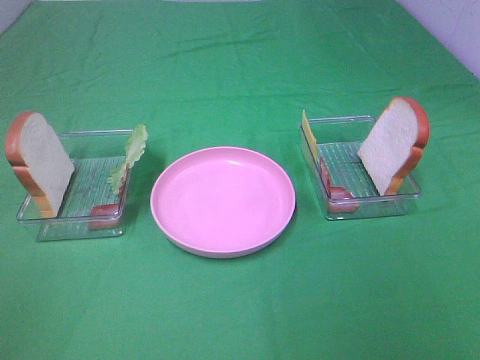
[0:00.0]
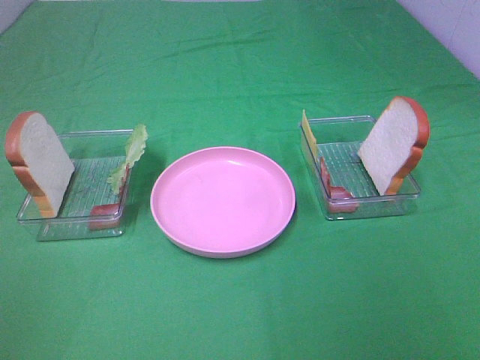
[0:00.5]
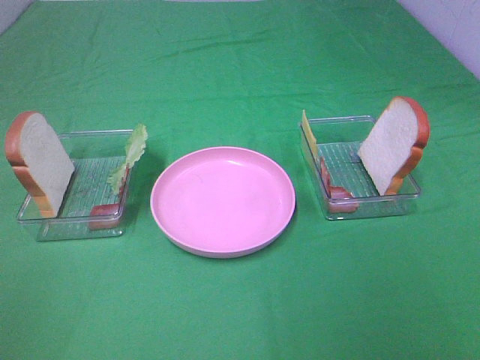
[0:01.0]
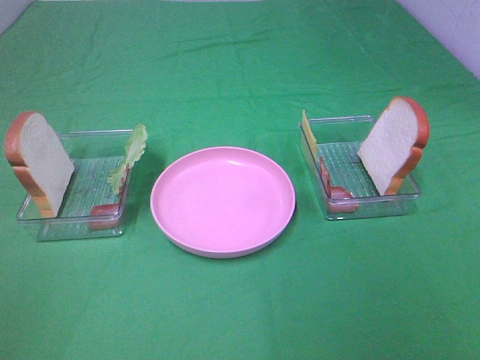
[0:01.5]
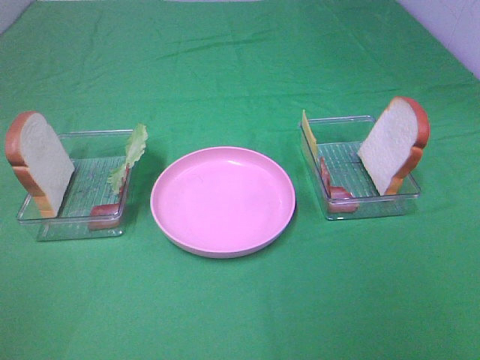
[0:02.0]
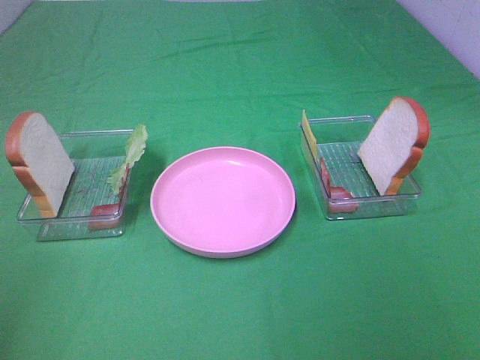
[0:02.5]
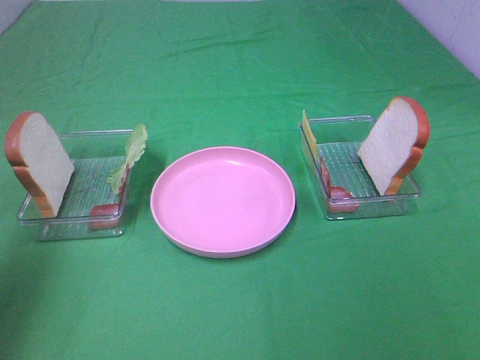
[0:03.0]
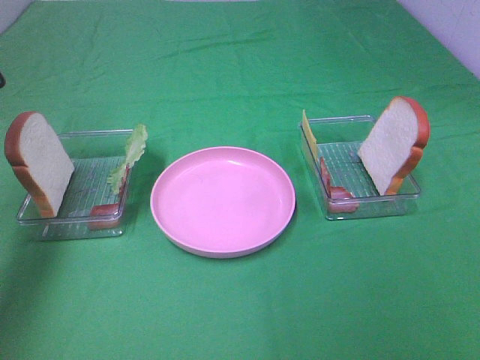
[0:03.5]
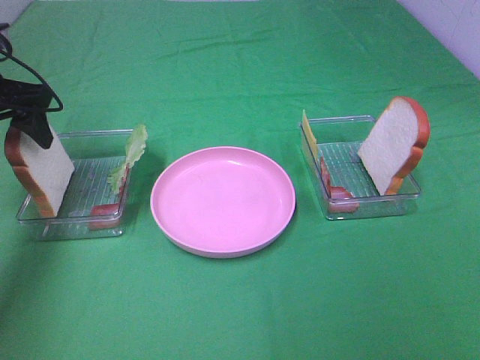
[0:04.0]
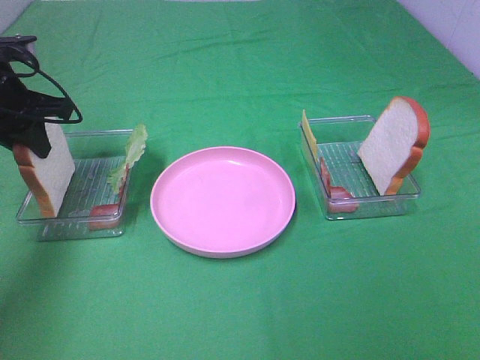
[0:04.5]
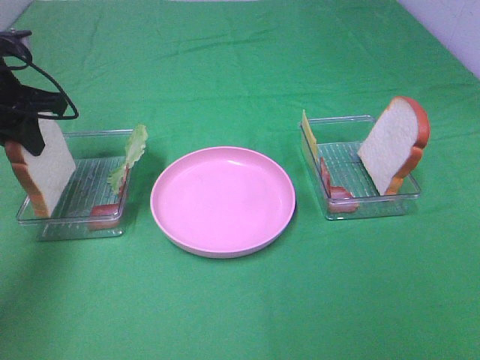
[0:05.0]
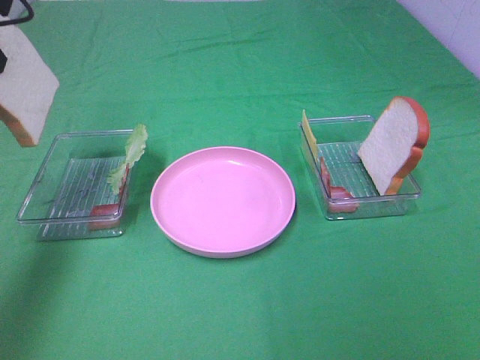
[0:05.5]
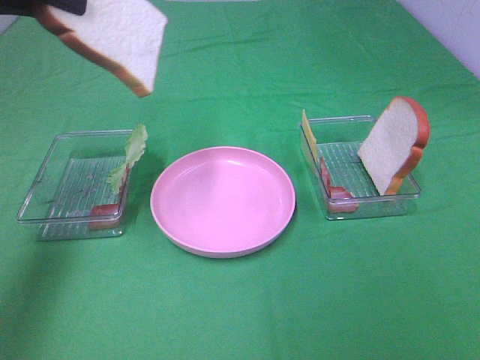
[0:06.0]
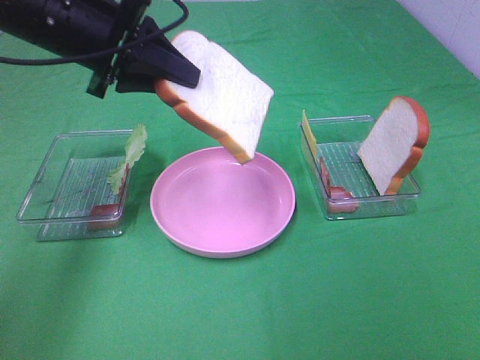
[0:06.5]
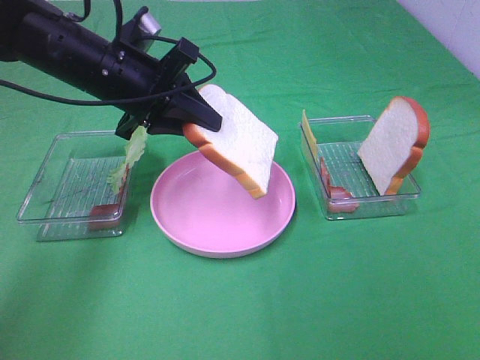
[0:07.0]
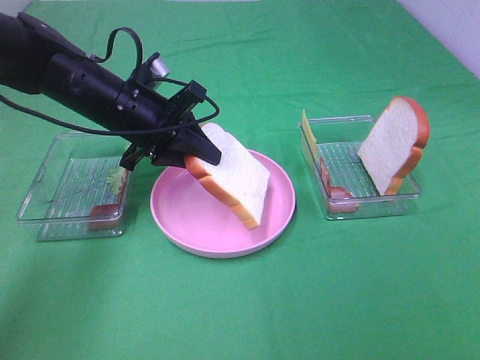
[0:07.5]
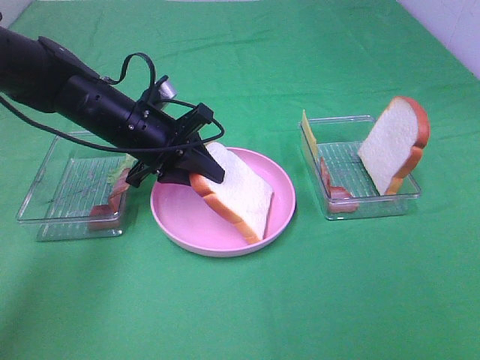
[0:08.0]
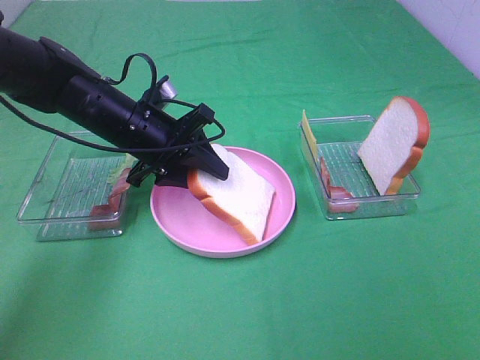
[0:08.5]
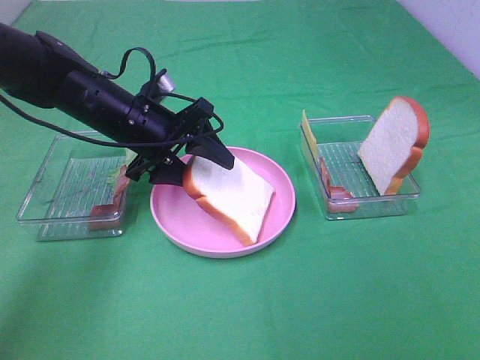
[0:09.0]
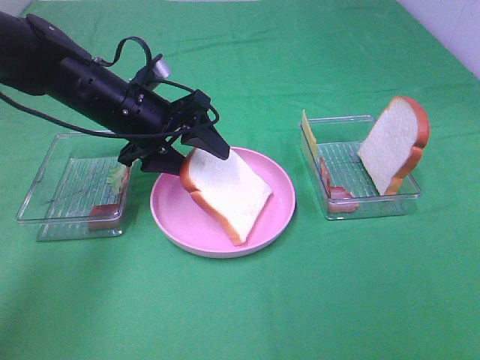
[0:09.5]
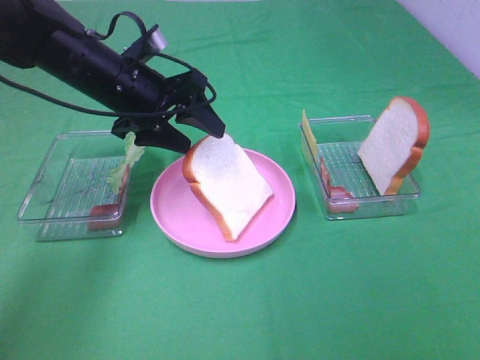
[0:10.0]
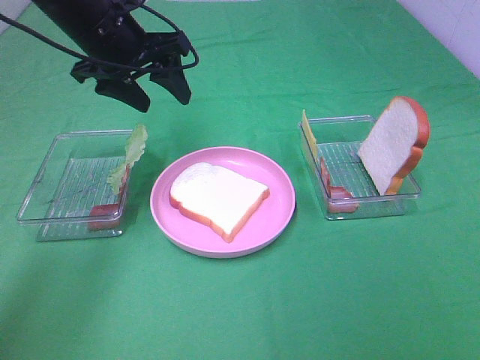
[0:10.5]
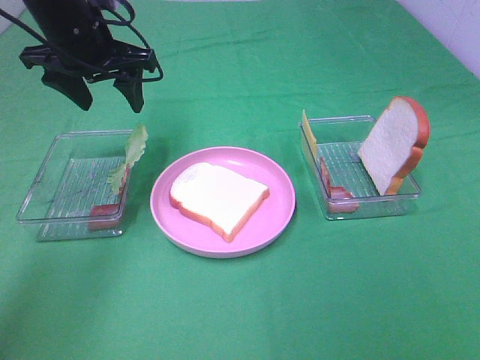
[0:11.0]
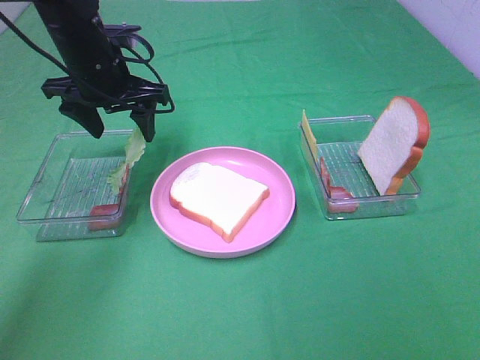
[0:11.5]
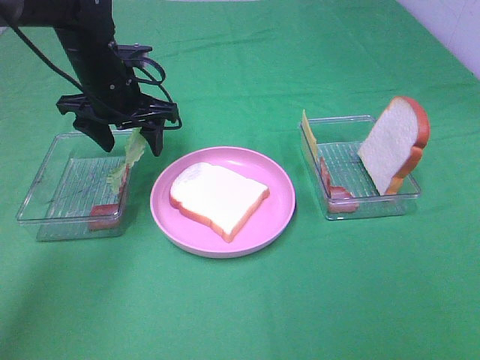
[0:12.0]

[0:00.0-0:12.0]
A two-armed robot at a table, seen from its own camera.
Task of the whole recording: Make sandwiches.
Step, 0:00.0 to 0:04.5: Left hand:grab the bread slice.
Step, 0:05.0 to 0:10.0: Left hand:place the bread slice on the plate.
0:00.0 to 0:02.0: The two grippers keep their place.
0:02.0 to 0:04.0: The left gripper travels forward by some 40 cm.
0:04.0 to 0:06.0: The left gripper goes approximately 15 cm upward, to the right and backward, and closes its fingers.
0:06.0 to 0:08.0: The left gripper moves downward and to the right, approximately 25 cm.
0:08.0 to 0:10.0: The left gripper heads upward, covering roughly 5 cm, and opens its fingers.
0:10.0 to 0:12.0: The left gripper travels upward and back again, roughly 5 cm each way.

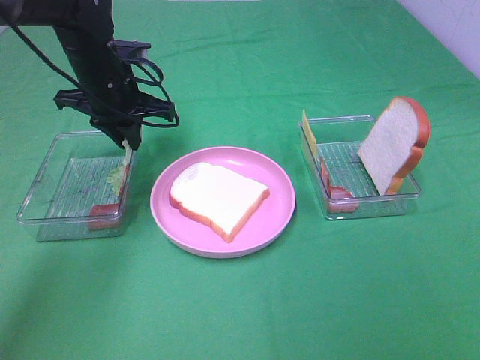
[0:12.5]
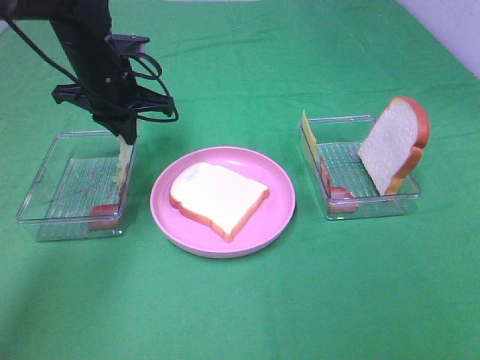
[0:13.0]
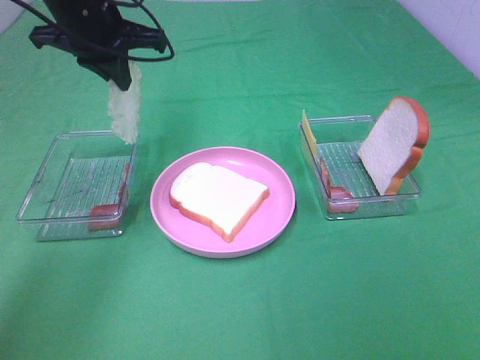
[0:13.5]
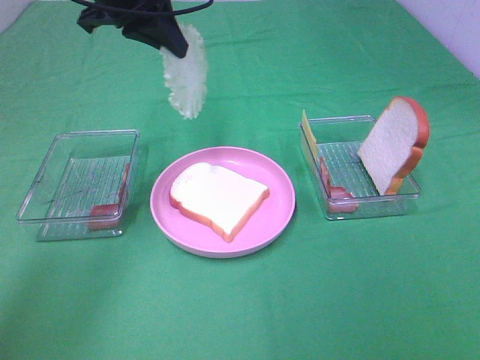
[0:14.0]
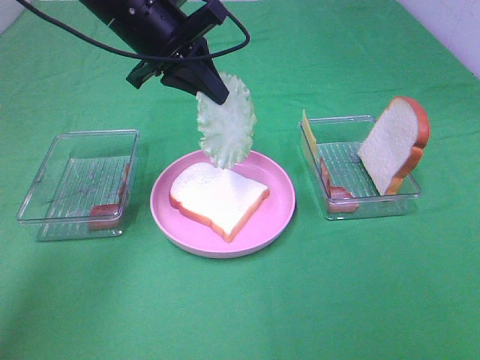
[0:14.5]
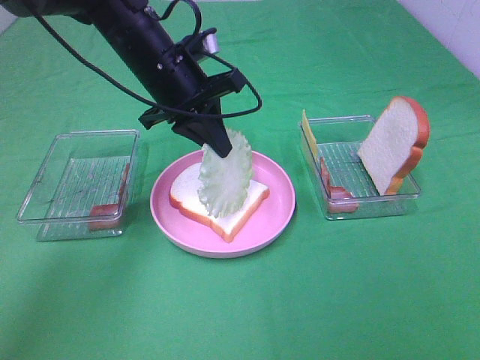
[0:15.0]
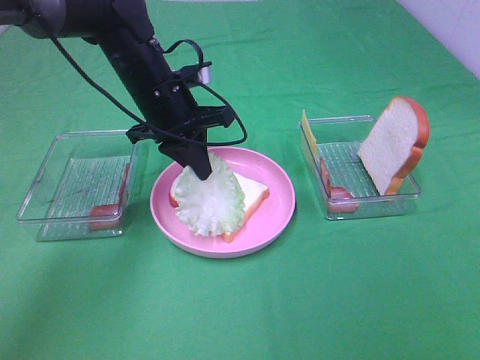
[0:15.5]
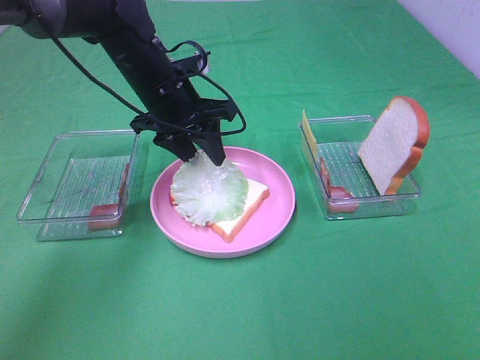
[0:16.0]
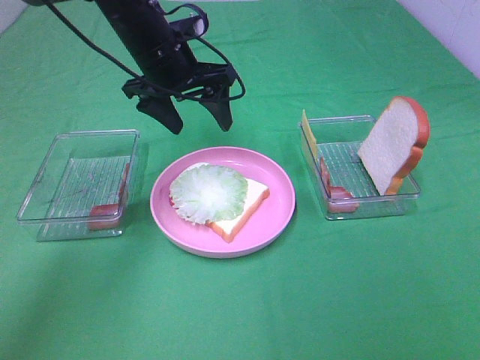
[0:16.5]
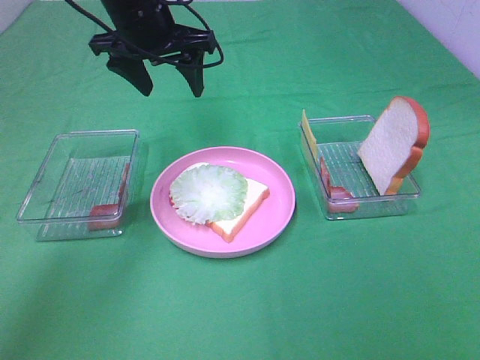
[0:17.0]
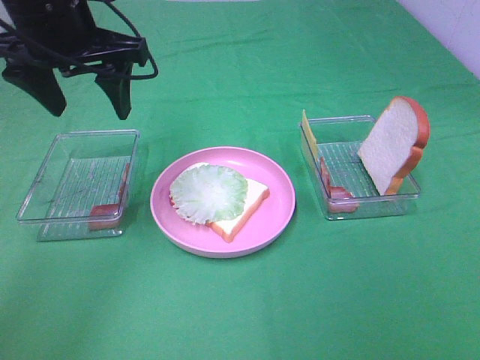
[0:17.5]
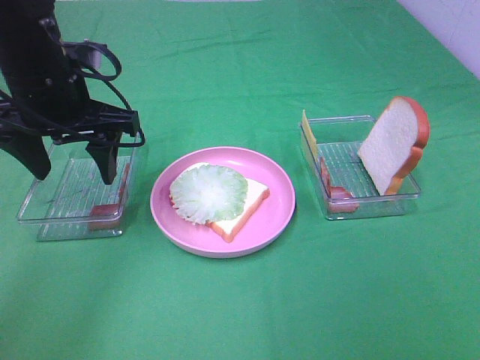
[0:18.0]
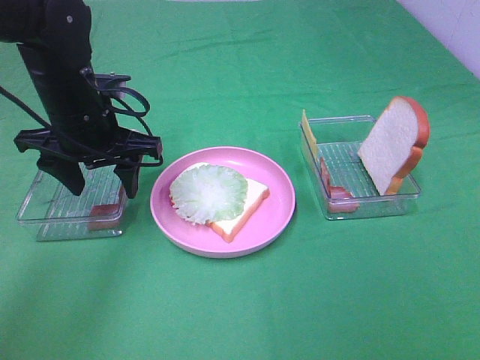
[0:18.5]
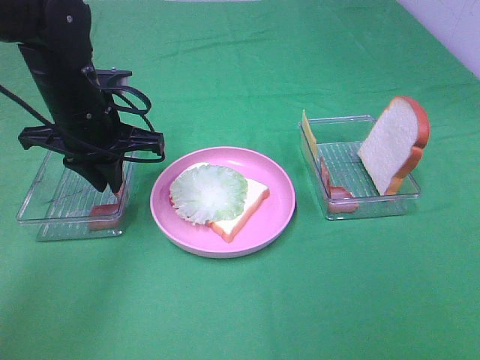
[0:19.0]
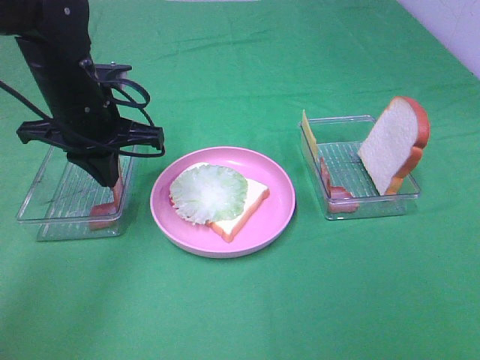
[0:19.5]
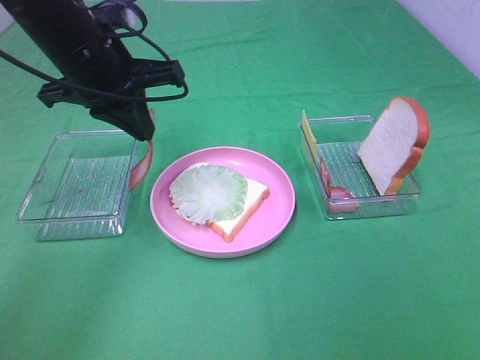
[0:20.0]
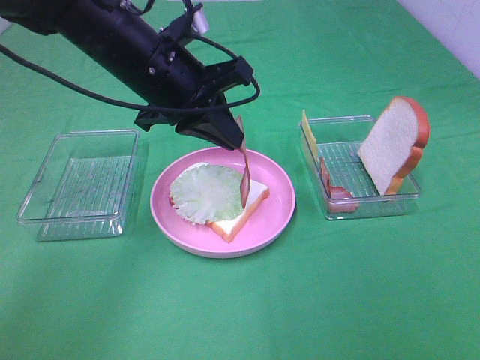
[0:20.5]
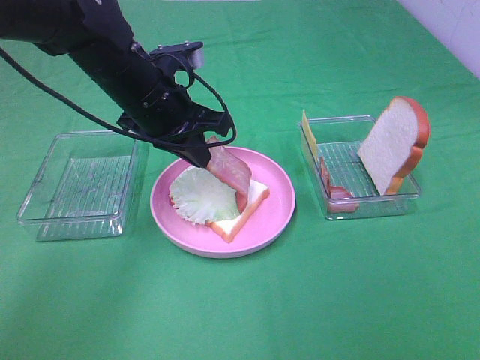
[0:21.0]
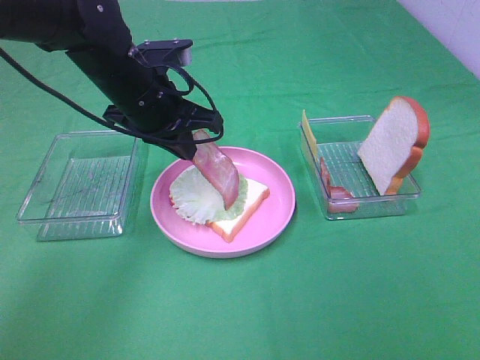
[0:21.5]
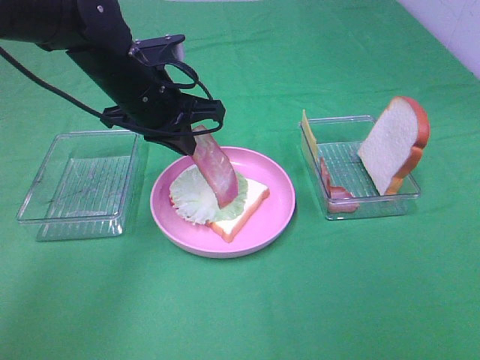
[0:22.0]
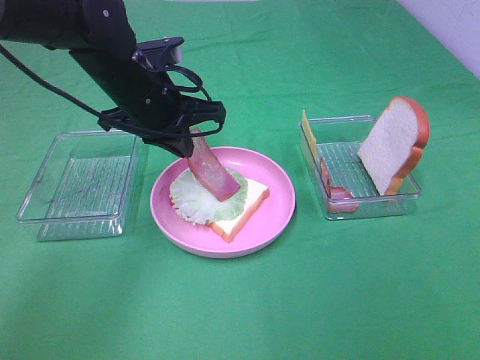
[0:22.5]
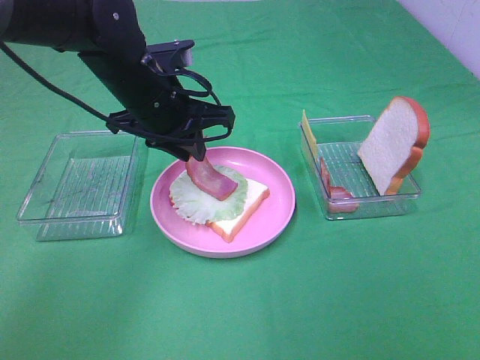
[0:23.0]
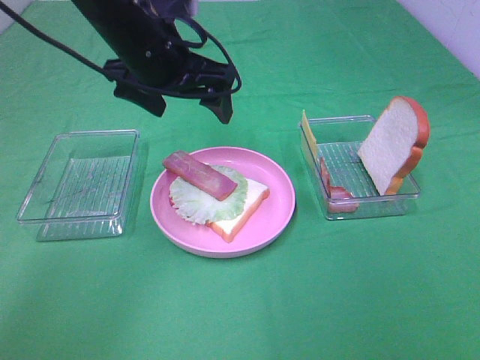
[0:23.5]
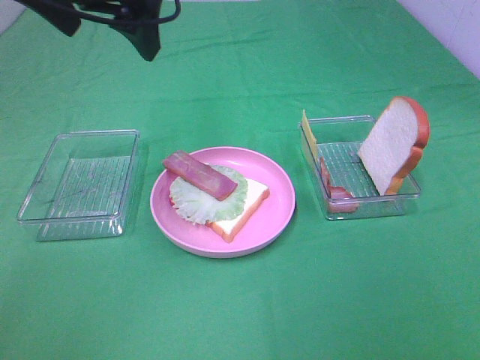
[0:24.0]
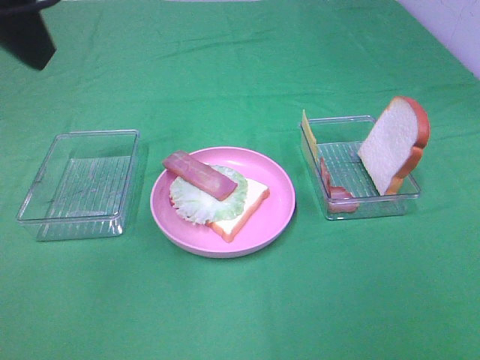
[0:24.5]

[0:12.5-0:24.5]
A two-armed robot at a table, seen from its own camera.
Task of the whole recording: Make sandwiches.
Step, 0:13.5 to 0:16.0: Left hand:place the lettuce slice on the bread slice.
Step, 0:16.5 to 0:19.5: Left hand:grab the bacon.
Step, 0:20.0 to 0:23.0: Left hand:place bacon on lettuce slice.
0:12.5 to 0:14.5: The left gripper shifts roughly 10 cm upward and to the right.
0:14.5 to 0:16.5: The left gripper opens.
0:16.5 to 0:18.5: The left gripper shifts roughly 10 cm backward and to the left, and reaches approximately 5 cm upward, then returns.
0:18.5 to 0:20.5: The left gripper travels to the right by about 10 cm, and closes its fingers.
0:22.5 to 0:24.5: The left gripper shifts about 30 cm upward, backward and to the left, and opens its fingers.

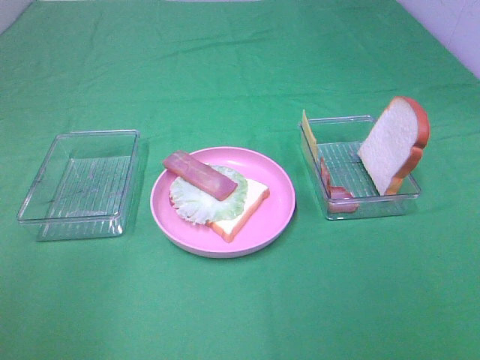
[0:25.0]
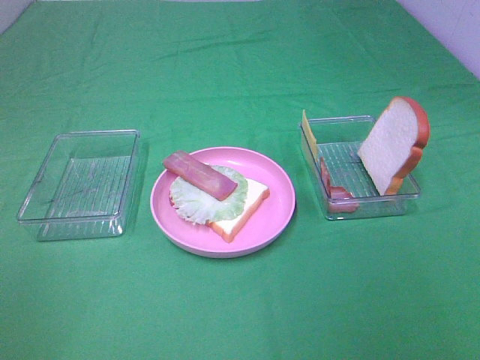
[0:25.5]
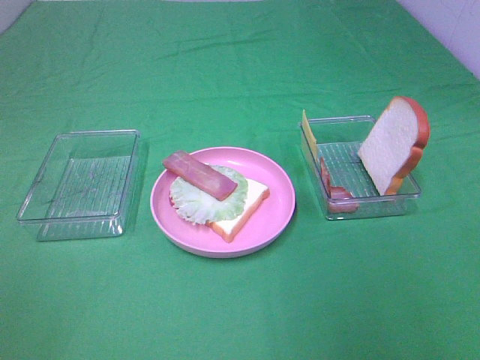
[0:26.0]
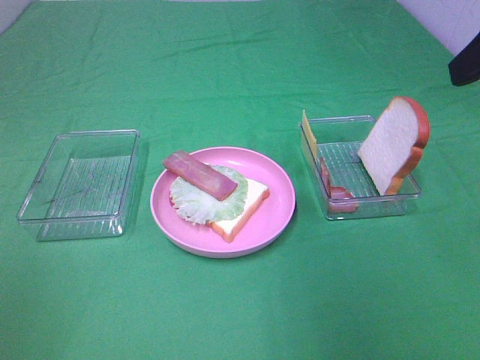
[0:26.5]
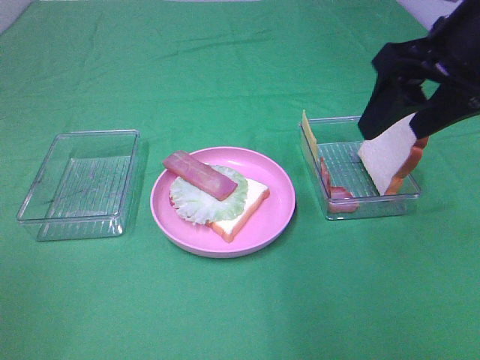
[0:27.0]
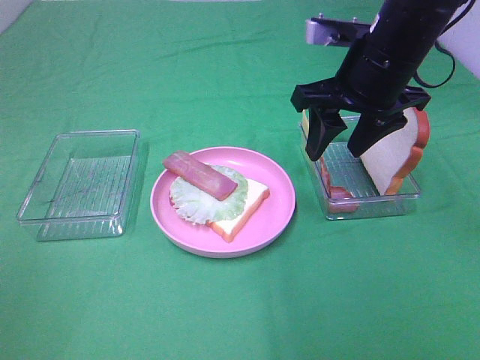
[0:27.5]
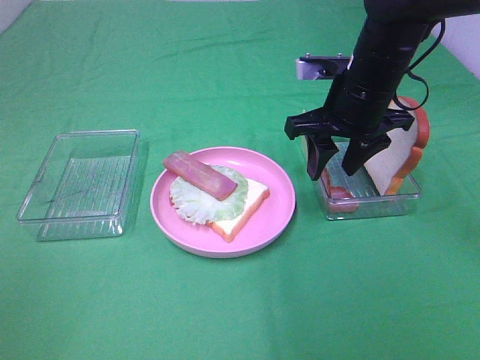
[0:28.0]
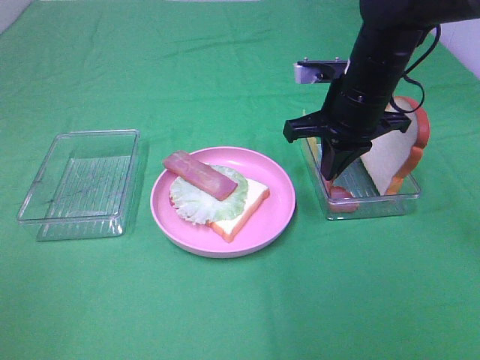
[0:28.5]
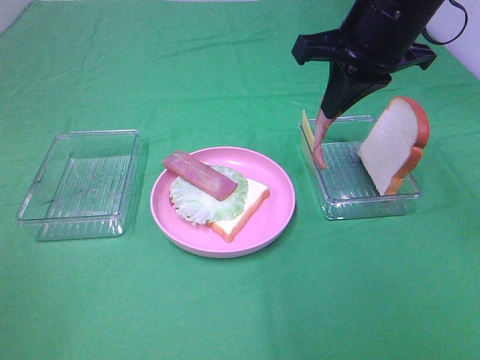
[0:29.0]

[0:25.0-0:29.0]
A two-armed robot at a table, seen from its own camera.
Task of the whole recording: Make sandwiches.
Step, 0:25.0 to 0:28.5: Right hand:grab the bacon.
0:25.0 to 0:27.0: The right gripper goes about 30 cm forward.
0:27.0 to 0:29.0: The right gripper shifts approximately 10 cm forward and to the left, travels downward and back again, approximately 10 cm each way, and closes its fingers.
